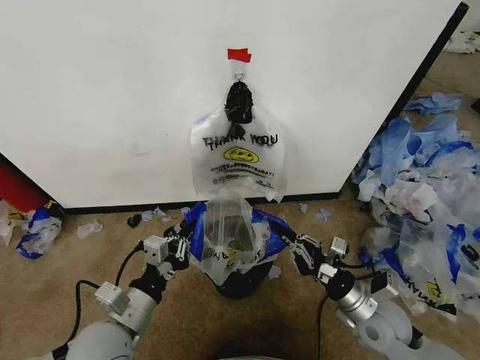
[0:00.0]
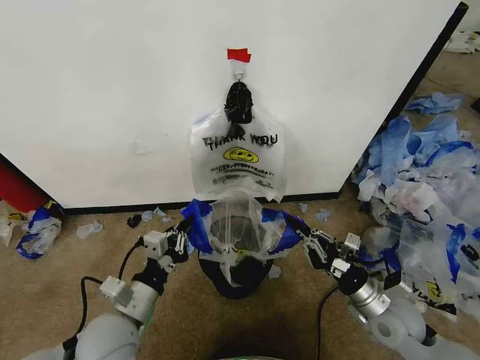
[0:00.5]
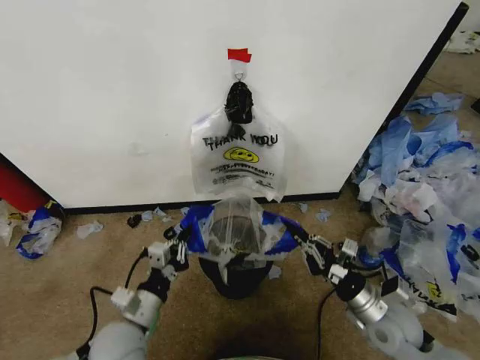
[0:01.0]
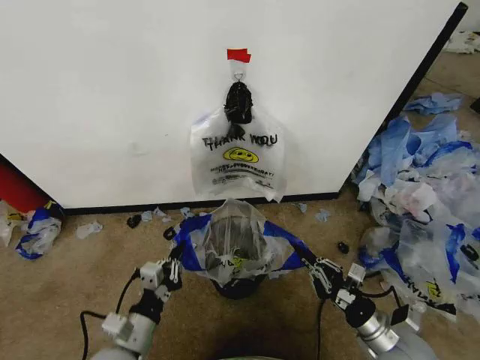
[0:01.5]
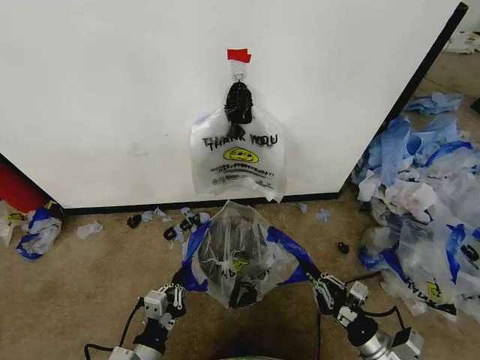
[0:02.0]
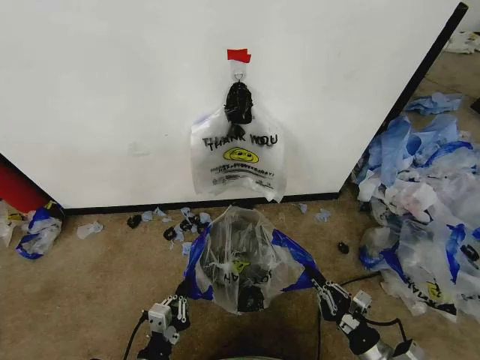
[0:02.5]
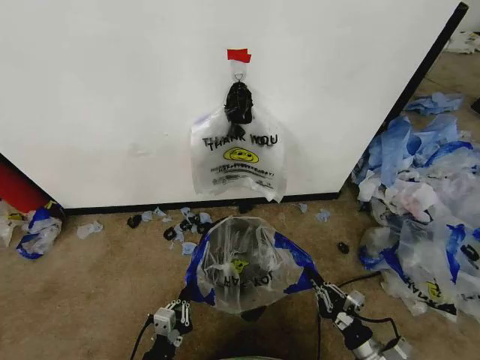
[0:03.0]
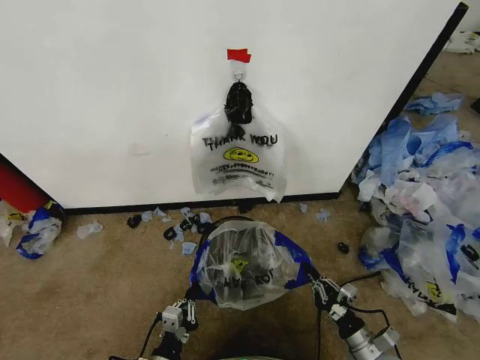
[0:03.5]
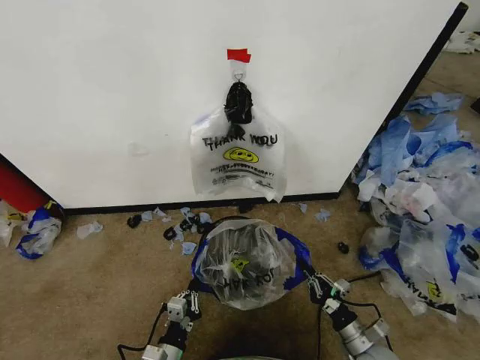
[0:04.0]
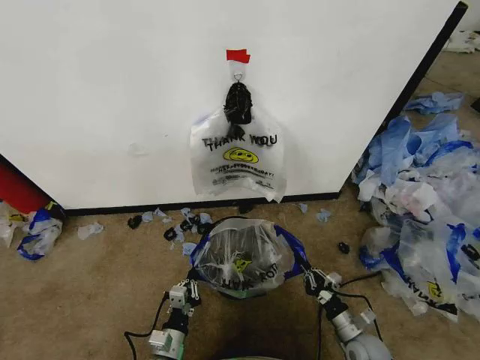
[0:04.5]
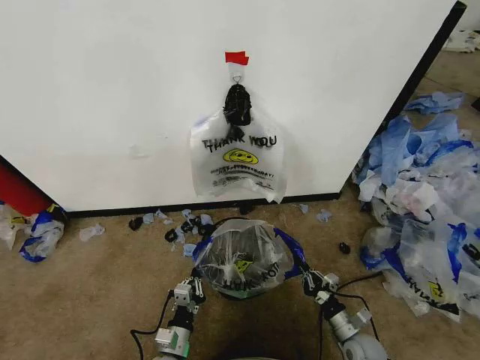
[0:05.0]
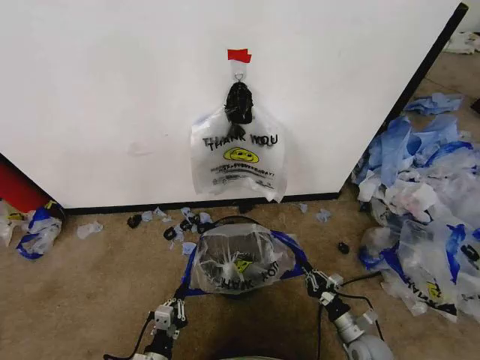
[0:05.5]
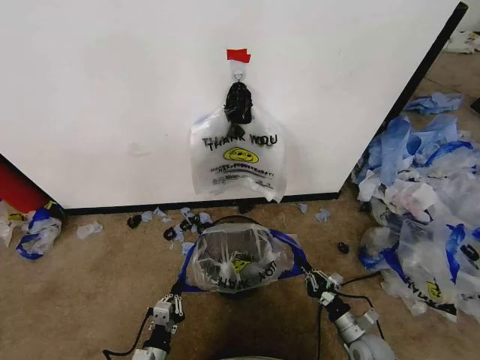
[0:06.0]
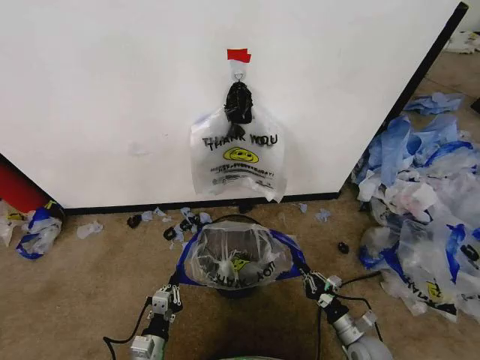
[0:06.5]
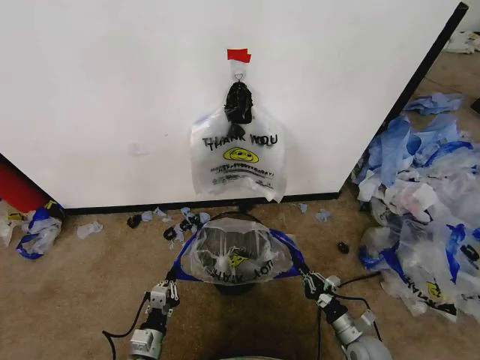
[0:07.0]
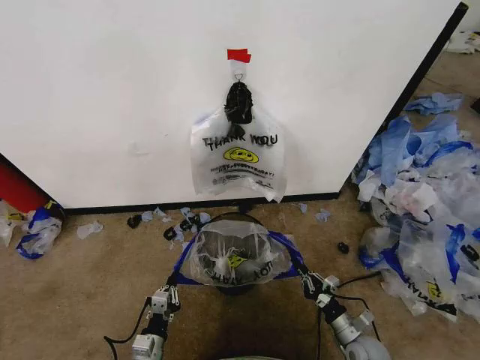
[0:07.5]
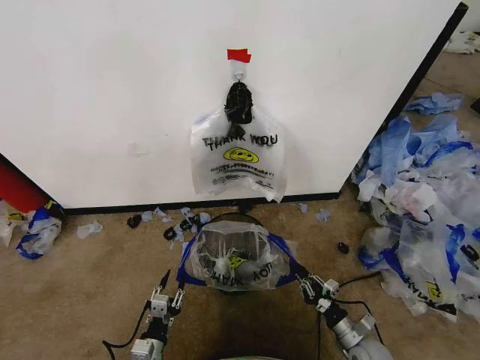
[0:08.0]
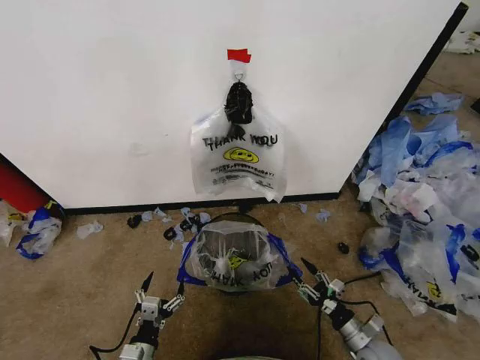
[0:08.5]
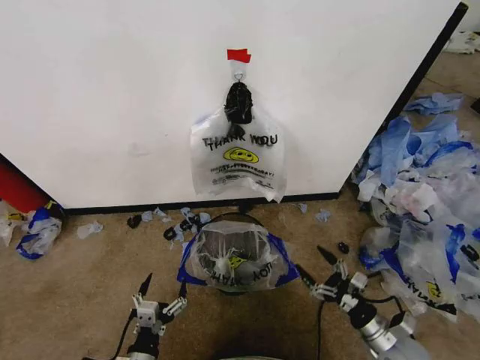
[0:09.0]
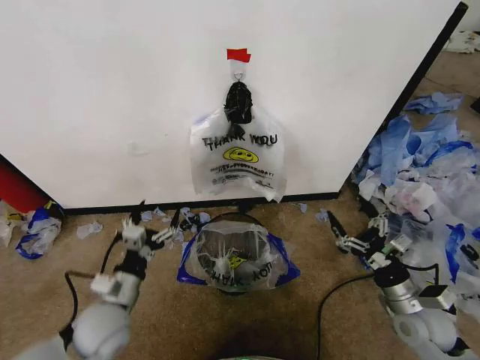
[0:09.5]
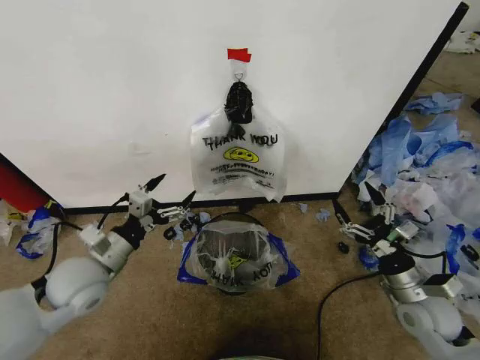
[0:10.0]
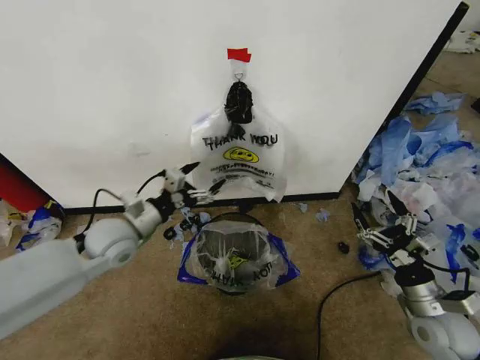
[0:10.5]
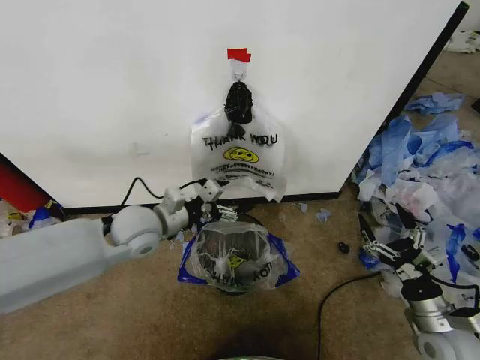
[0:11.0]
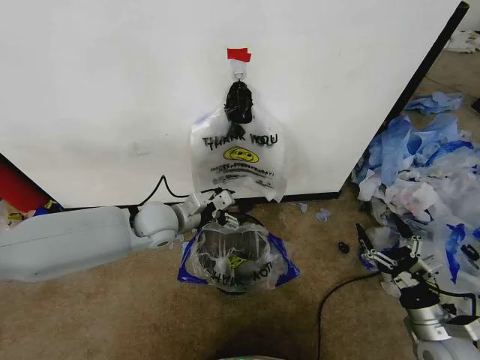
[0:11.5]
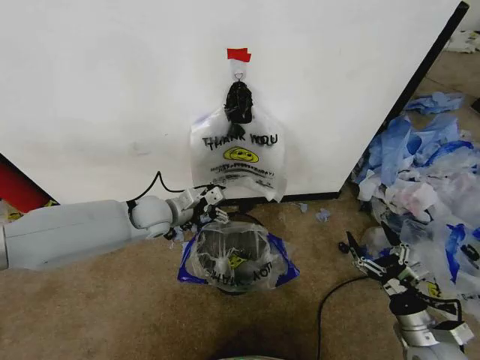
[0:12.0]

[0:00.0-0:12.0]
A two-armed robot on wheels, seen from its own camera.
Task of the whole recording: Pick up the garbage bag from the wall and place it over the trash bin.
0:00.0 to 0:02.0: The right gripper shifts some 10 cm backward and downward; the left gripper goes approximately 15 cm downward and backward.
0:02.0 to 0:04.0: The grippers both shift downward by about 10 cm.
0:04.0 to 0:06.0: The grippers move only a little.
0:06.0 to 0:08.0: The left gripper opens.
0:08.0 to 0:10.0: The left gripper moves upward and forward, some 30 cm, and opens up, while the right gripper goes about 20 cm upward, and opens its fingers.
0:10.0 to 0:12.0: The right gripper travels backward and downward by some 10 cm. The left gripper goes approximately 20 cm forward and to the right.

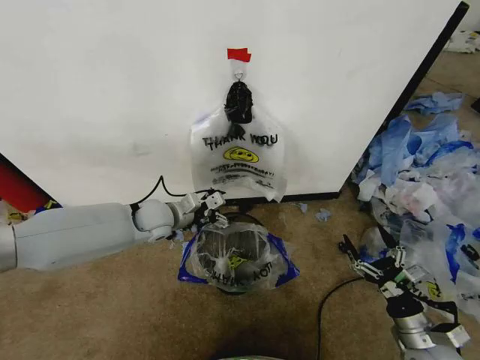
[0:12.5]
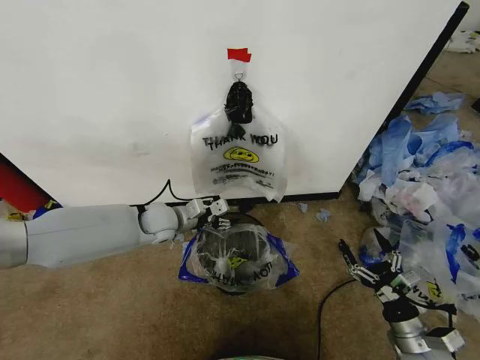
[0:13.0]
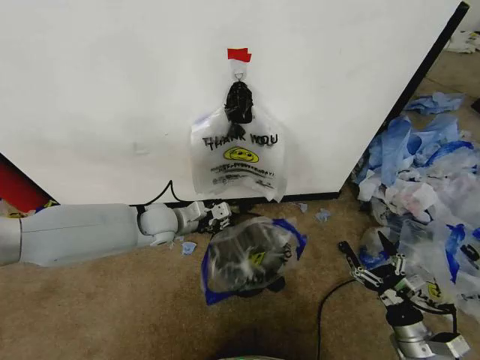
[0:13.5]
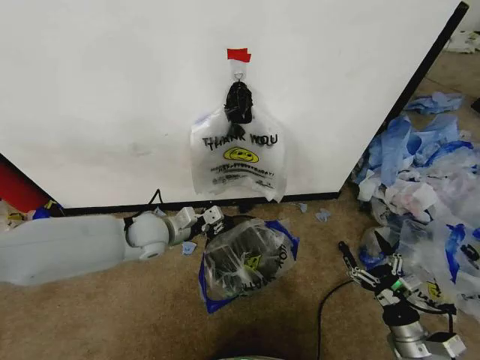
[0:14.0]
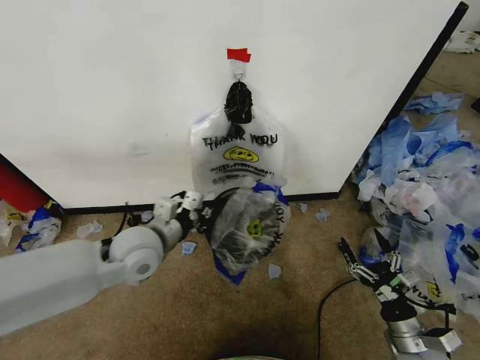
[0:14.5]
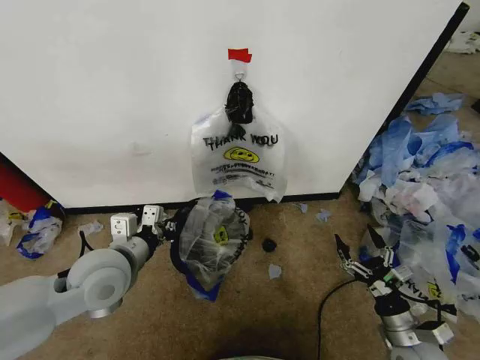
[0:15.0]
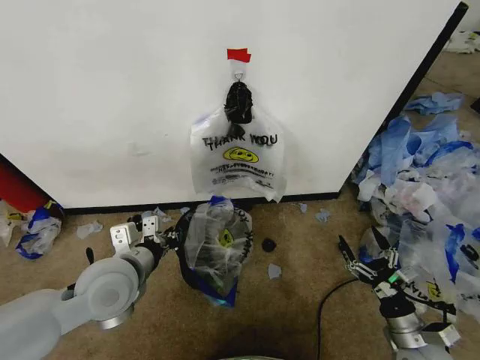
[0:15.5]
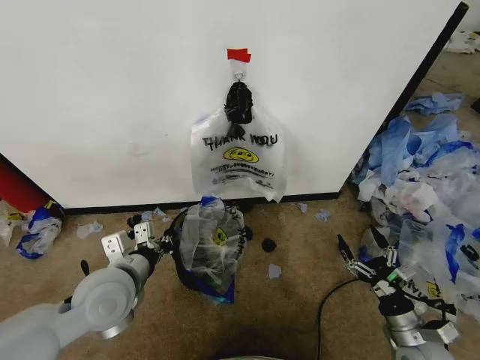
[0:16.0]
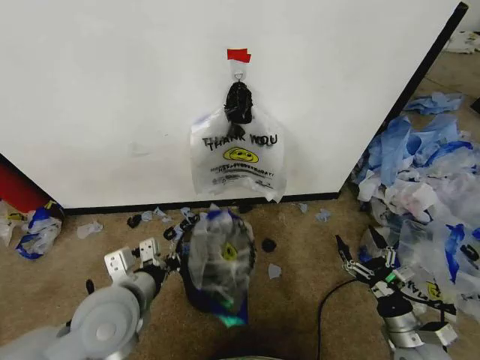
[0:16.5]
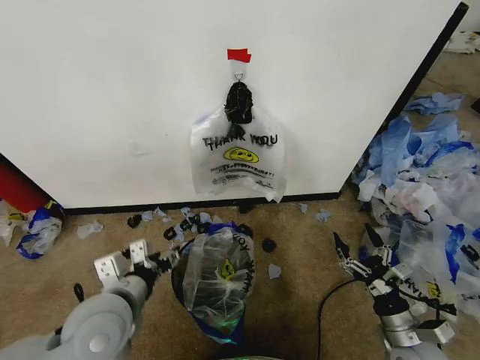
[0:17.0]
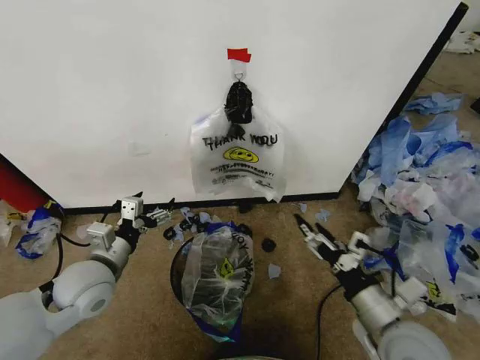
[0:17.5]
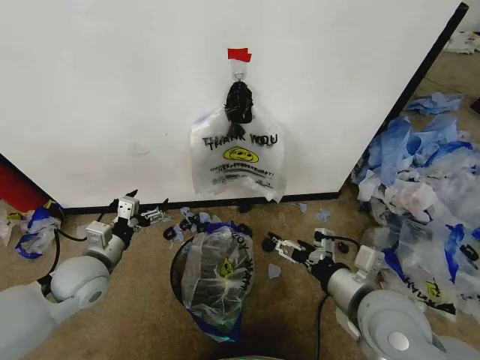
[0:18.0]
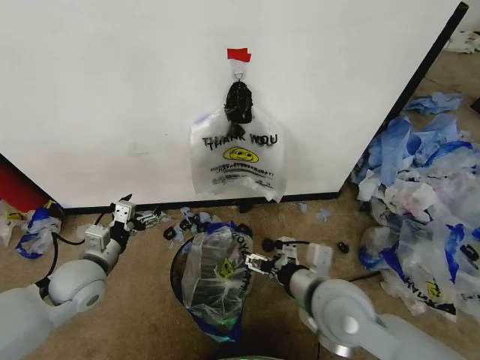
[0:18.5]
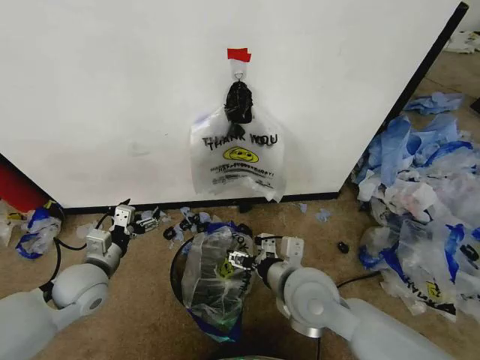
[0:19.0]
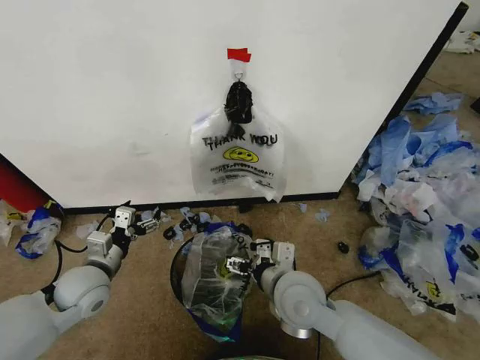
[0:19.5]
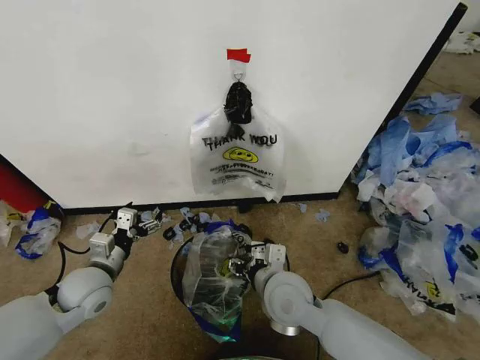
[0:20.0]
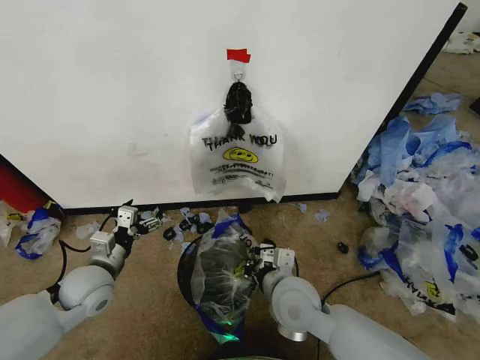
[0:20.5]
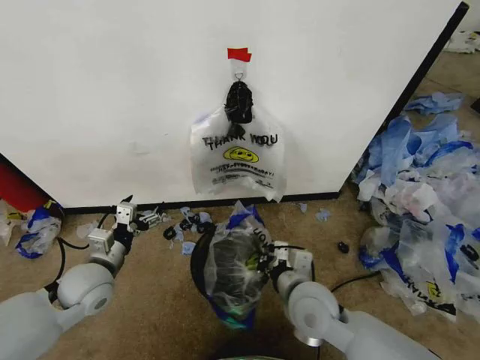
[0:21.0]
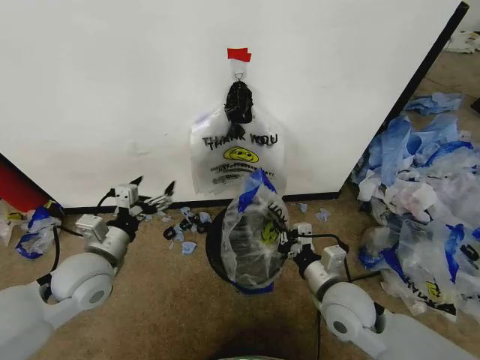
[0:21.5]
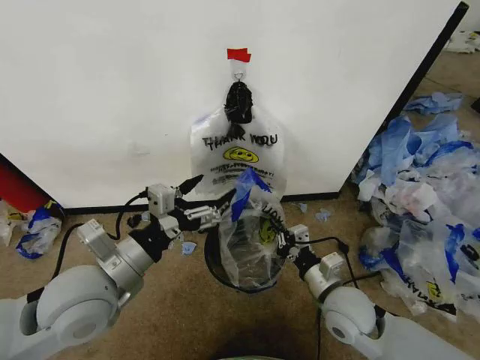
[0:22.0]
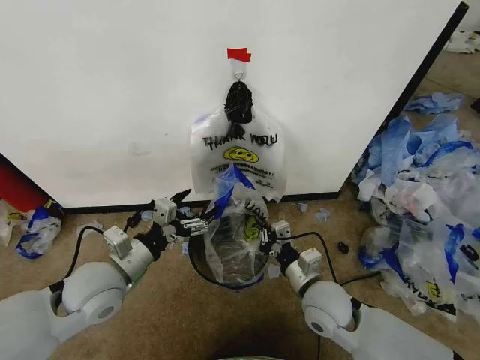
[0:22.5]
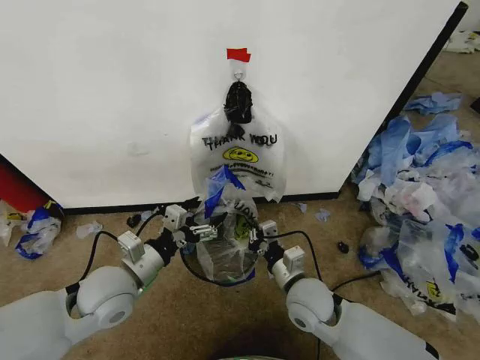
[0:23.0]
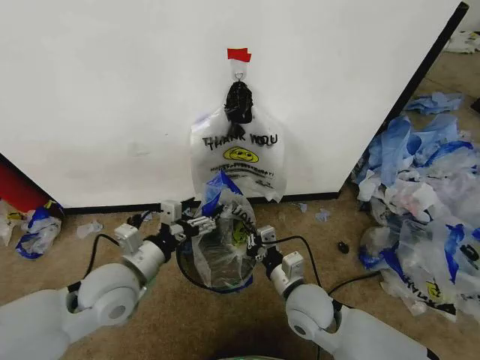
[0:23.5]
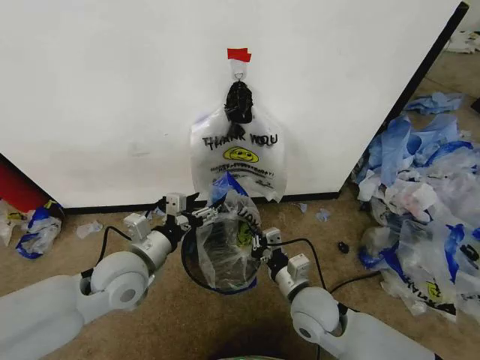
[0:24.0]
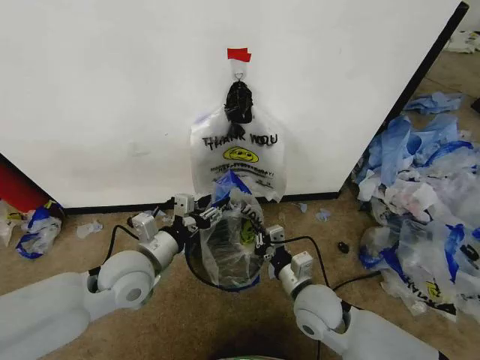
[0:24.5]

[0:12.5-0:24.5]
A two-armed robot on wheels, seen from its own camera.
Task of the whole recording: Pick up the garbage bag from the wall and place it over the trash bin.
0:12.5 to 0:14.5: The left gripper travels backward and upward by about 15 cm, and closes up.
0:14.5 to 0:16.5: The left gripper goes approximately 10 cm backward.
0:16.5 to 0:18.5: The right gripper is displaced to the left and upward by about 25 cm. Meanwhile the left gripper goes some 15 cm to the left, forward and downward, and opens up.
0:18.5 to 0:20.5: The right gripper moves downward and to the left, some 10 cm, and closes its fingers.
0:20.5 to 0:22.5: The left gripper goes some 10 cm upward and to the right. The right gripper moves to the right, roughly 10 cm.
0:22.5 to 0:24.5: The left gripper moves approximately 5 cm, and closes.

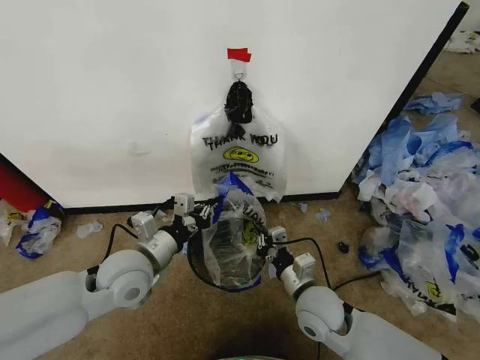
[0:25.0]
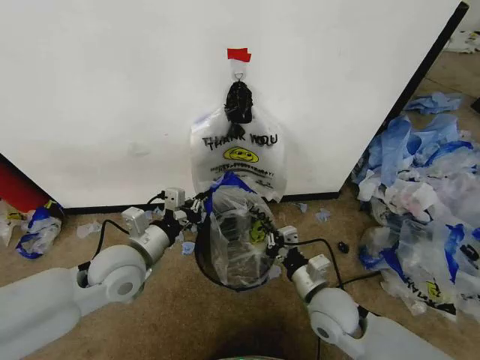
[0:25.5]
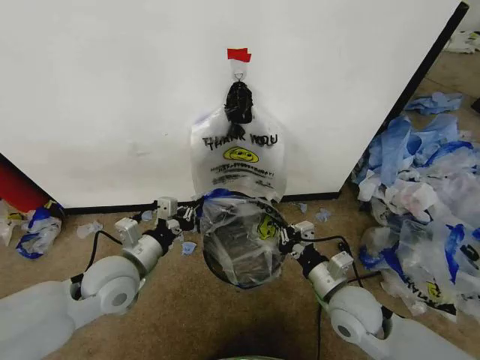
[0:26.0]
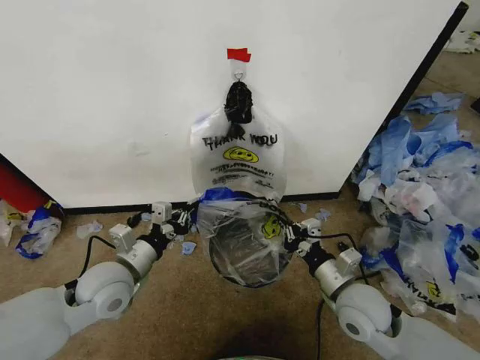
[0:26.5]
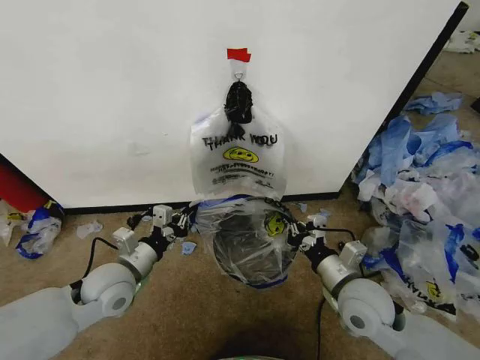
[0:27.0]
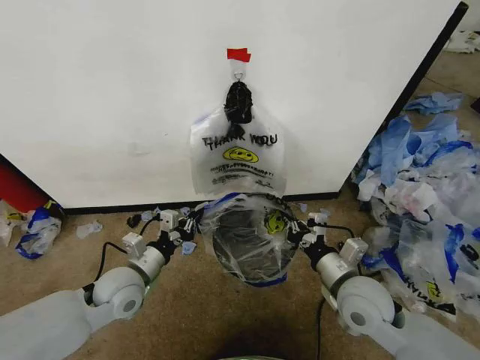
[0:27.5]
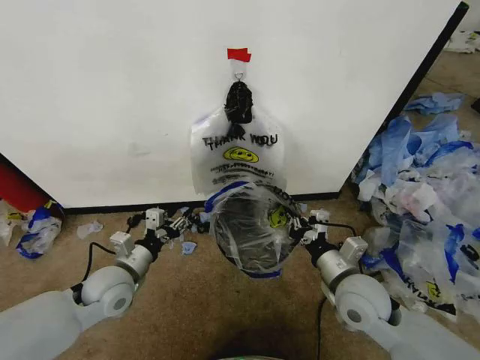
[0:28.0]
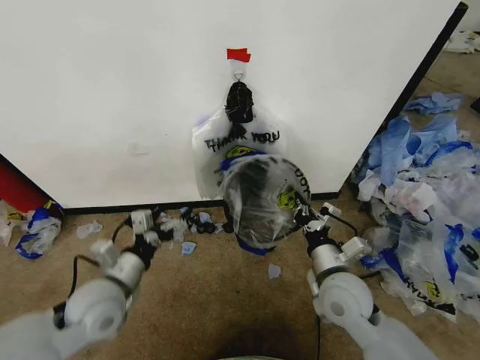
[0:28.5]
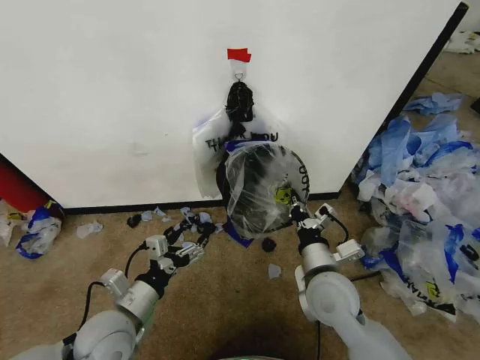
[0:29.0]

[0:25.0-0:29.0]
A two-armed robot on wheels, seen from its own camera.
Task of the whole recording: Pick up the garbage bag from the wall and place it over the trash bin.
0:25.0 to 0:27.0: The left gripper goes about 5 cm to the left; the right gripper shifts about 10 cm to the right and upward.
0:27.0 to 0:29.0: The left gripper shifts about 10 cm backward, and opens its fingers. The right gripper is displaced to the left by some 5 cm.
